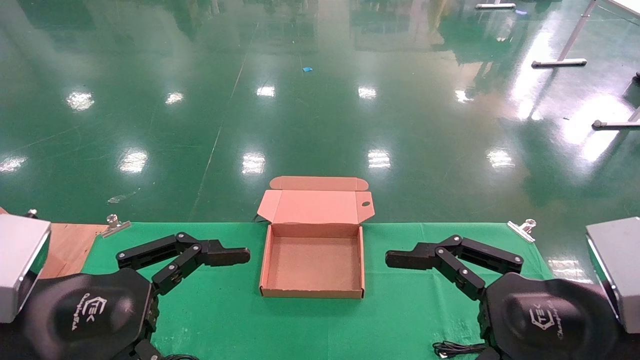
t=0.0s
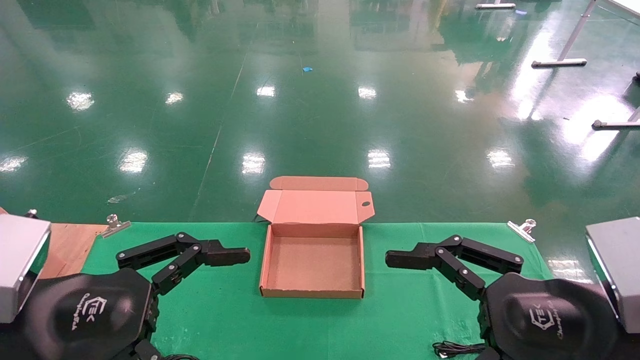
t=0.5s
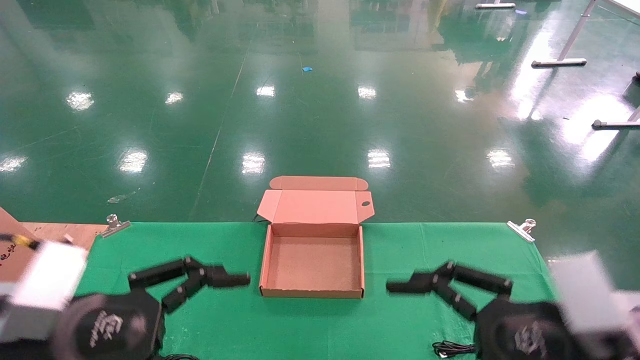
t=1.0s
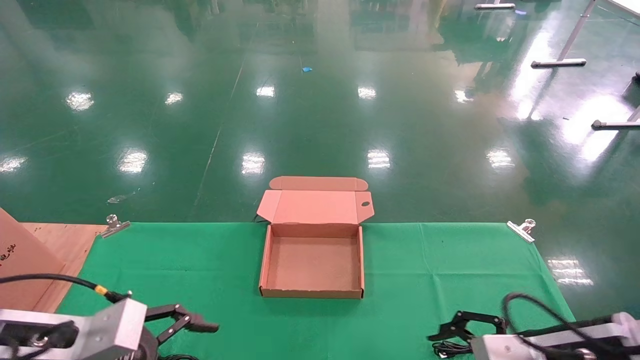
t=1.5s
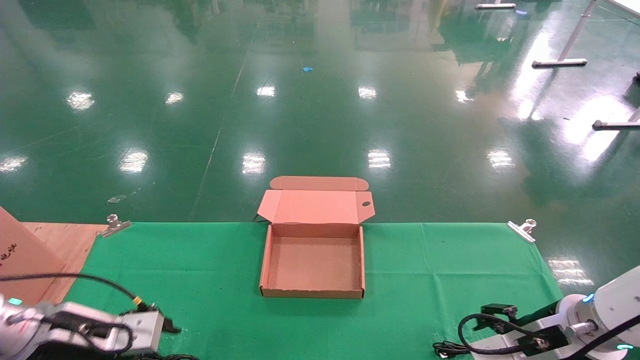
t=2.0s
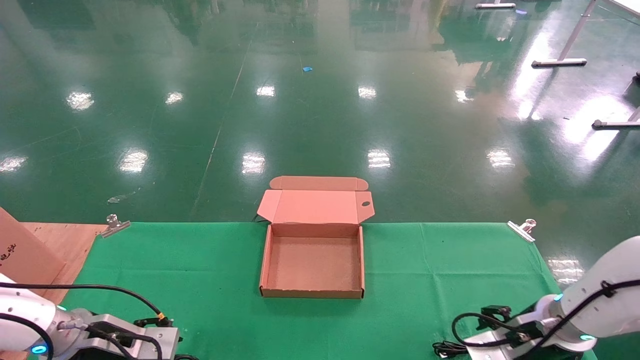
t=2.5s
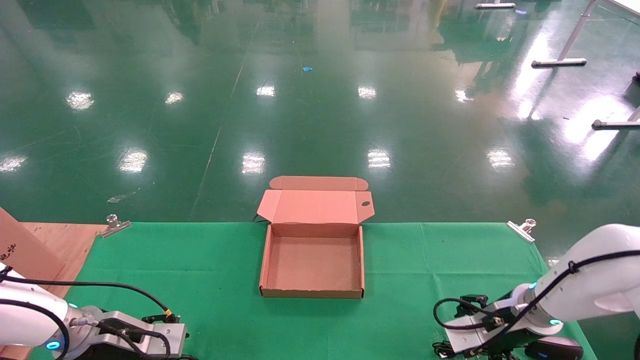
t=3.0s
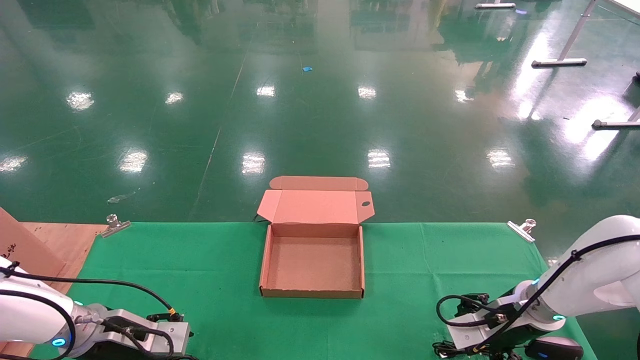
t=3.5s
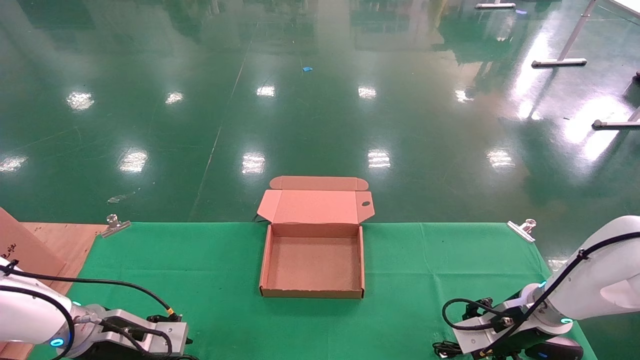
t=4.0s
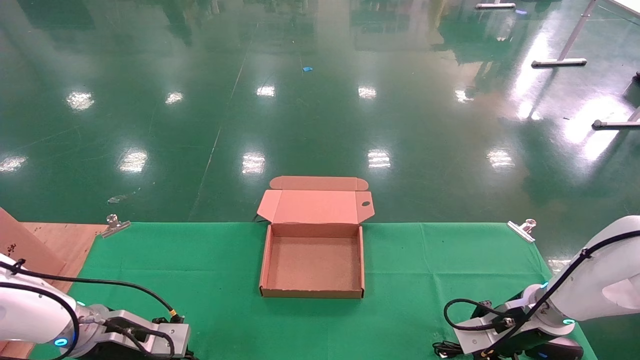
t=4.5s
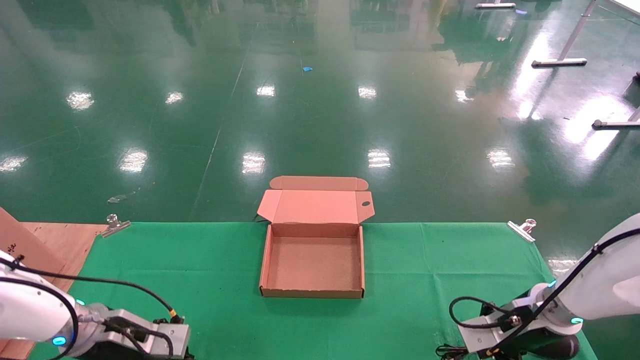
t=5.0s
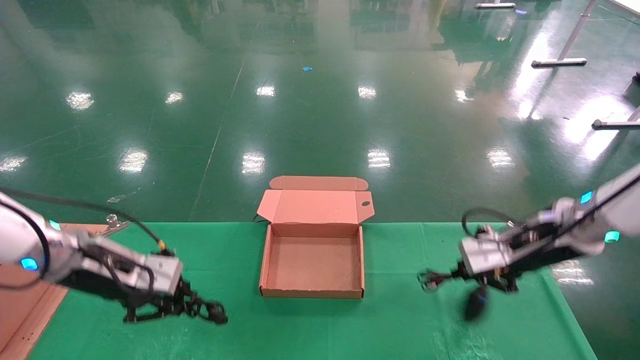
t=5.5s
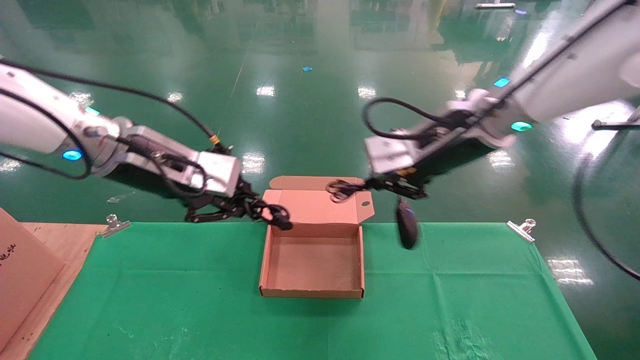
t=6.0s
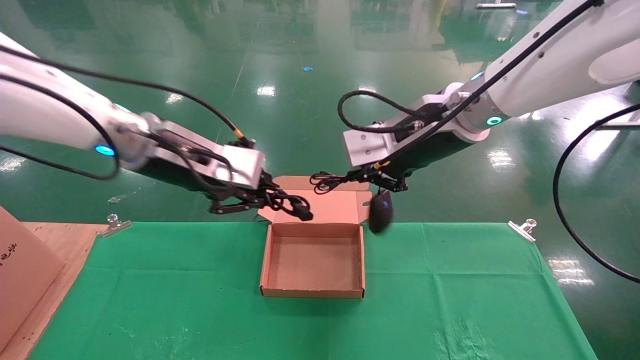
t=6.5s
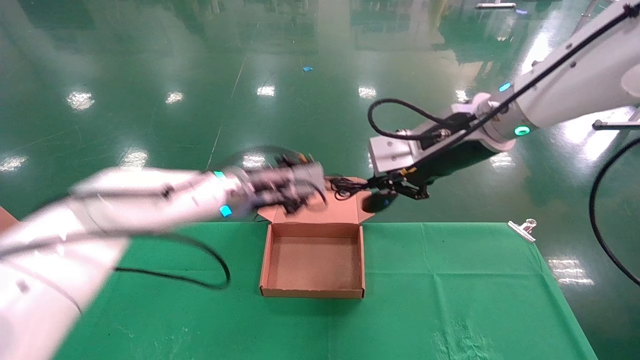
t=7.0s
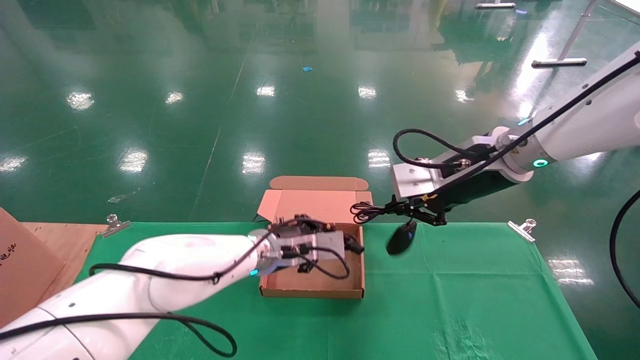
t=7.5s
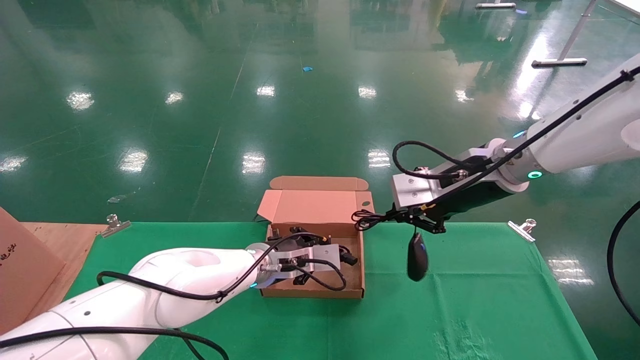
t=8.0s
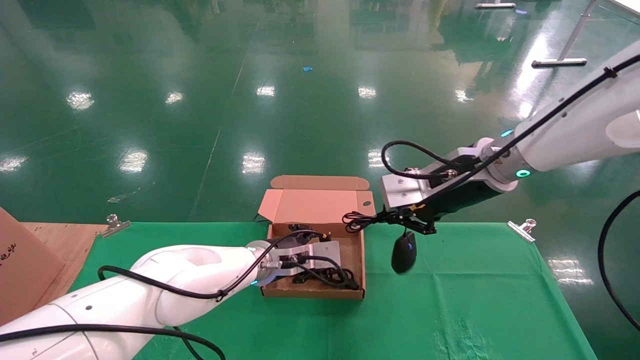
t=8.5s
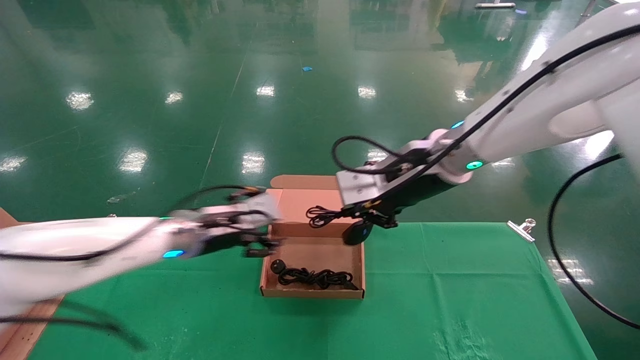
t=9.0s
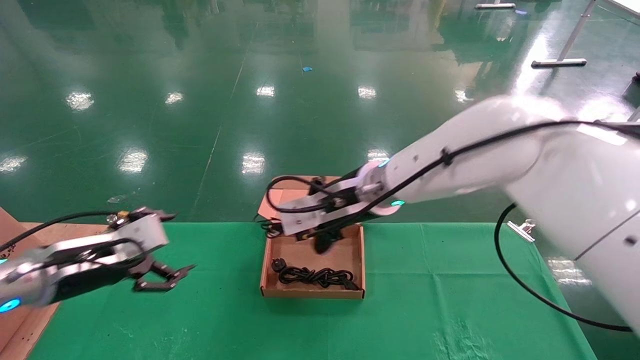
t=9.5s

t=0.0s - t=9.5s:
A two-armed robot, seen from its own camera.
Step, t=1.5s - t=5.5s: Grab and lift both the mouse and power cord from the accessory packaging area at the same time.
t=0.0s - t=2.0s: The right gripper is displaced forward and downward by about 20 cm, while the left gripper goes about 20 cm forward, downward and to the left.
t=2.0s - t=4.0s: The left gripper goes roughly 10 cm forward and downward, while the right gripper shifts some 10 cm forward.
t=4.0s - t=5.5s: Both grippers travel together upward, roughly 15 cm. The right gripper closes. Meanwhile the left gripper closes its fingers.
t=5.5s - t=7.5s: The right gripper travels upward and to the left by some 10 cm, while the left gripper shifts approximately 25 cm to the right and forward.
t=7.5s - t=9.5s: The left gripper shifts some 25 cm to the left and backward, and opens up; the right gripper heads to the left, covering roughly 15 cm.

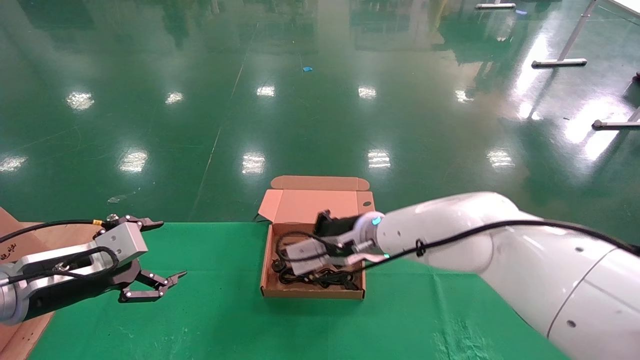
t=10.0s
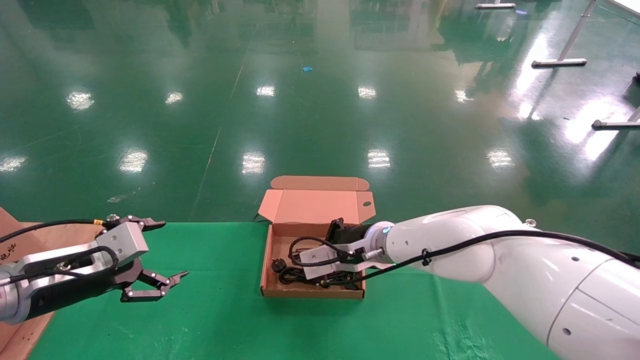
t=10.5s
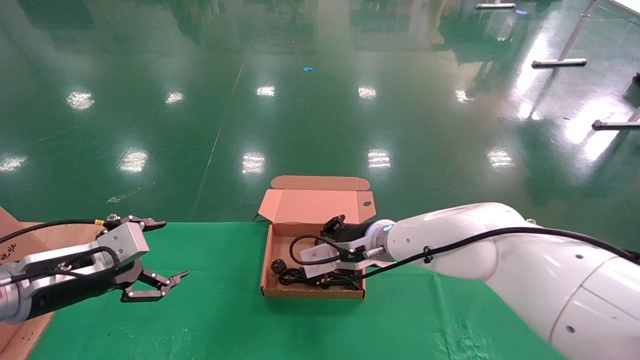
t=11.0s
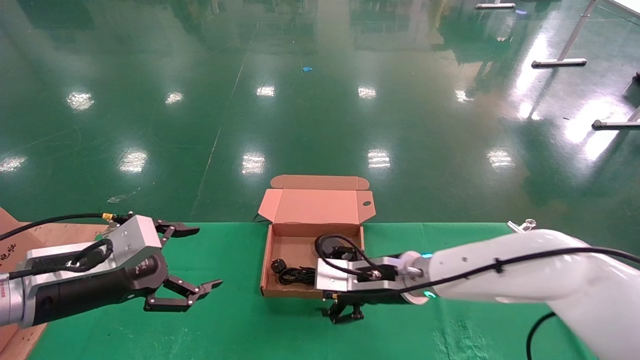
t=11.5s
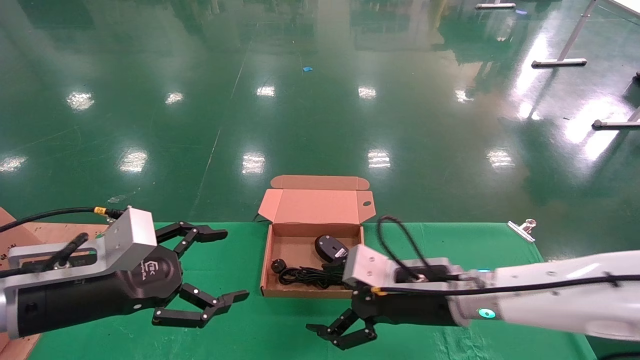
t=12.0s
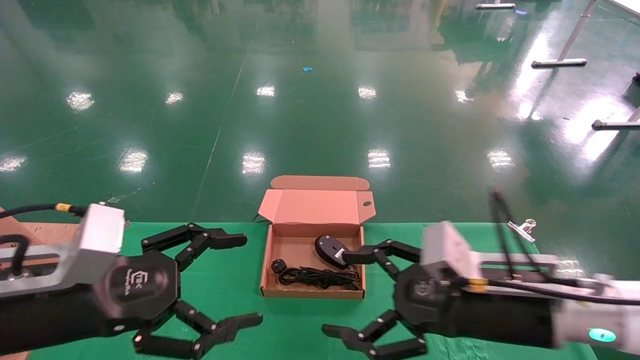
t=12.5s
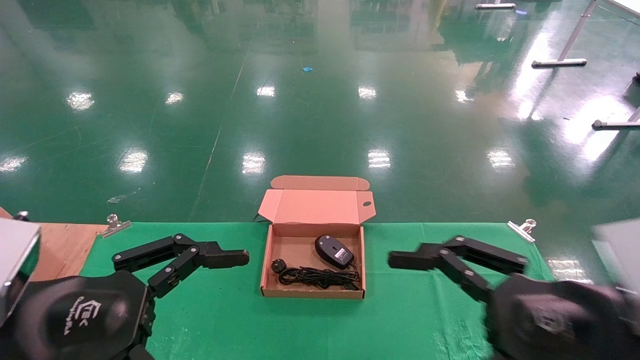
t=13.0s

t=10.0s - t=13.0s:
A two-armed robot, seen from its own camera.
t=10.0s - t=11.5s: The right gripper heads downward and to the right, covering approximately 10 cm, and opens.
t=11.5s - t=13.0s: The left gripper heads backward, covering about 10 cm; the right gripper shifts approximately 25 cm backward and to the right.

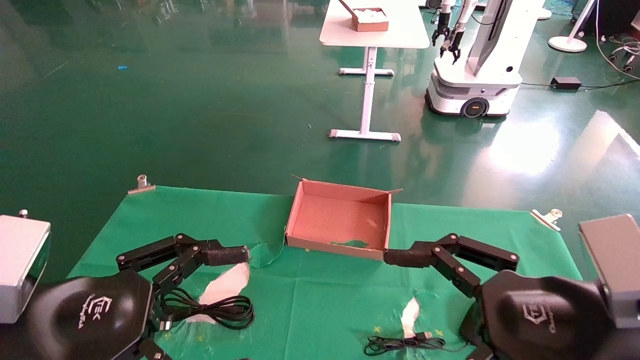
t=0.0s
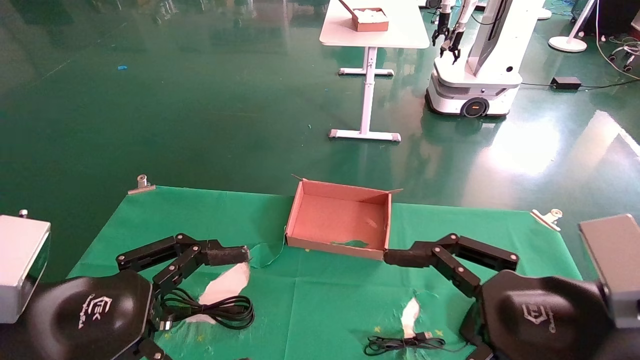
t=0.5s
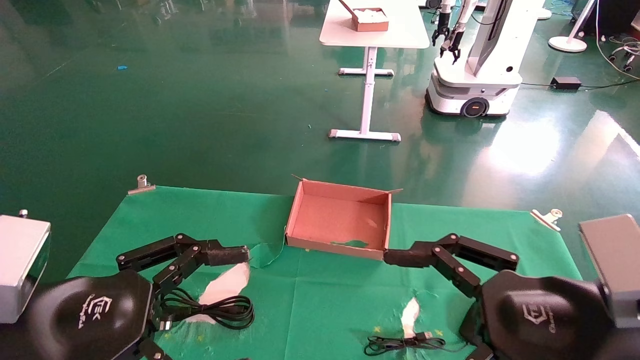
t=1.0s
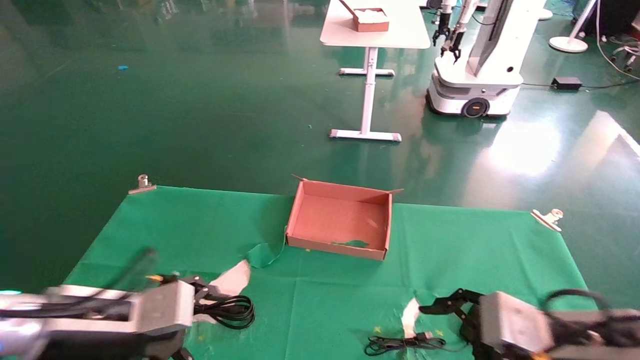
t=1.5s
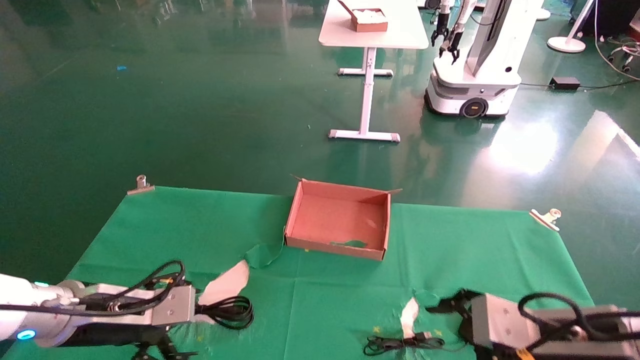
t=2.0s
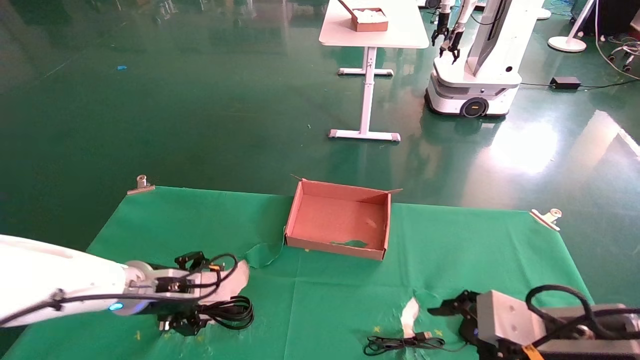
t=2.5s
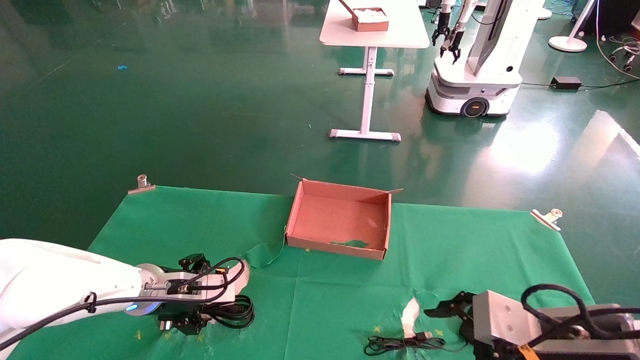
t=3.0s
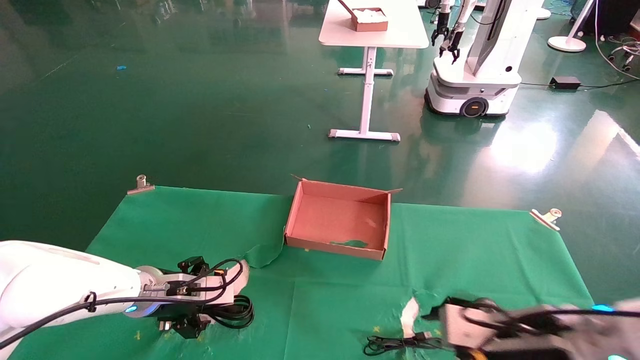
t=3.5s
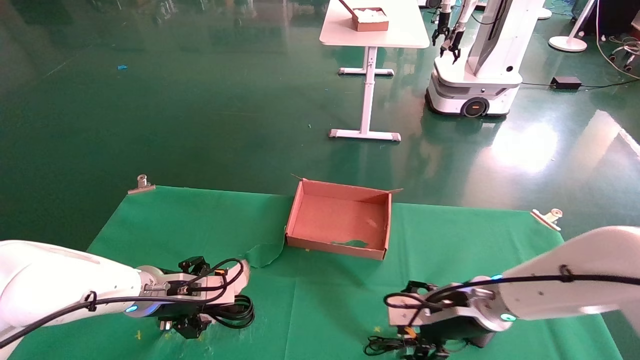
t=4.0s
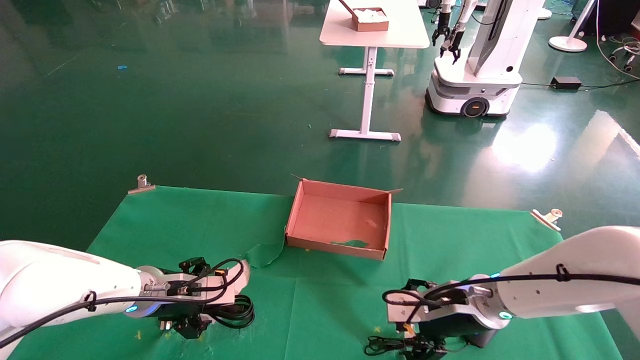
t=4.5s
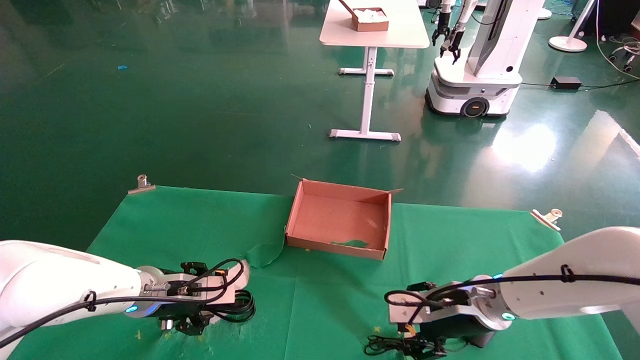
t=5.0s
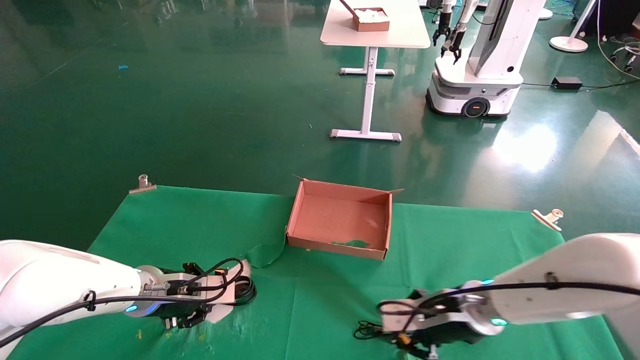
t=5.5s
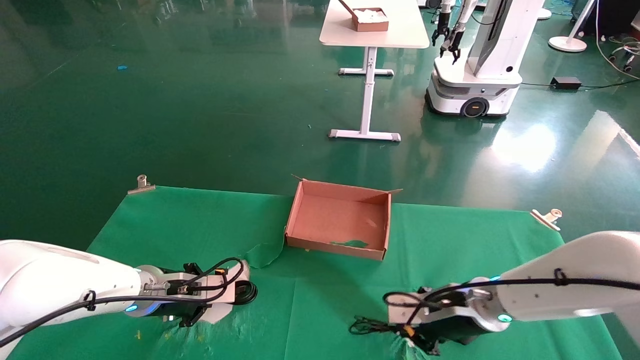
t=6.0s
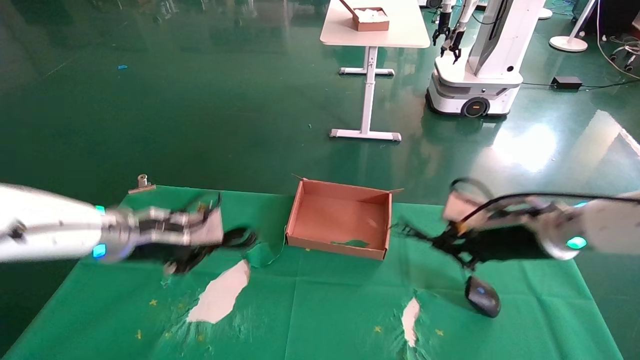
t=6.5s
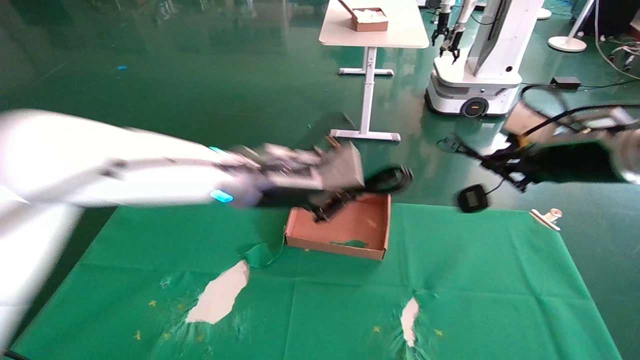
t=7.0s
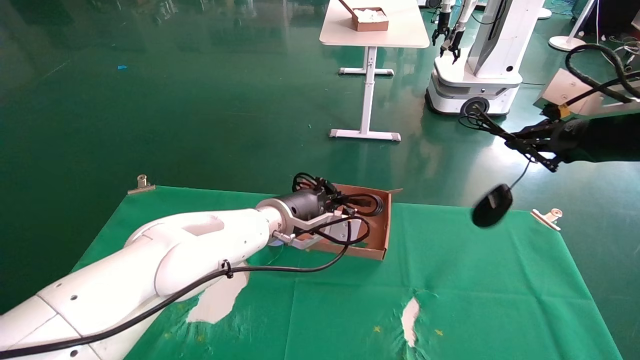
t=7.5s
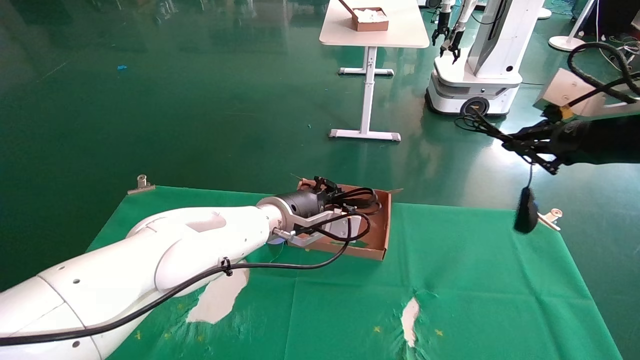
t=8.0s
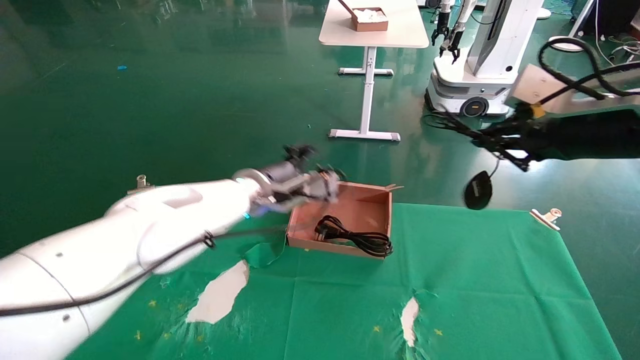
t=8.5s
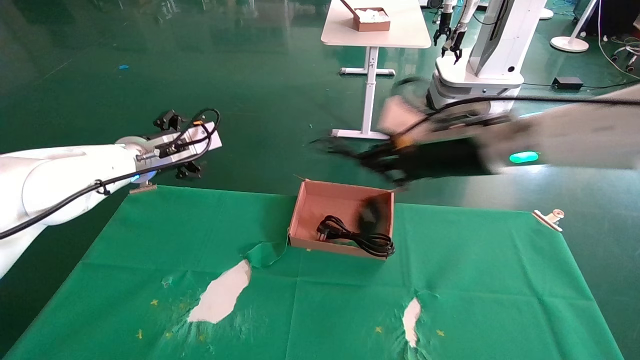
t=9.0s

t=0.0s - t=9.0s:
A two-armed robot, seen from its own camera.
Step, t=2.0s - t=6.0s: Grab and lift both the mouse and power cord from the accessory packaging area at the same time.
t=0.0s - t=2.0s: The right gripper heads downward and forward, covering about 10 cm; the left gripper goes some 15 cm forward and downward.
t=2.0s - t=4.5s: The right gripper is displaced forward and to the left by some 15 cm; the left gripper travels forward by about 10 cm.
t=4.5s - t=7.0s: The left gripper goes roughly 25 cm to the right and upward, and closes up. Meanwhile the right gripper goes about 25 cm upward and to the right, and closes up.
t=7.0s - t=9.0s: The right gripper shifts roughly 15 cm to the left. The left gripper travels to the left and forward by approximately 20 cm, and opens up.
